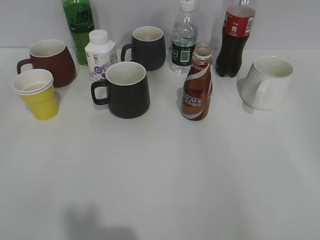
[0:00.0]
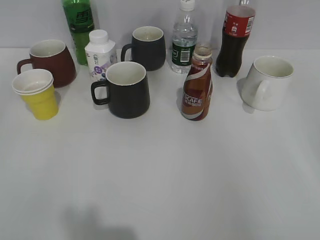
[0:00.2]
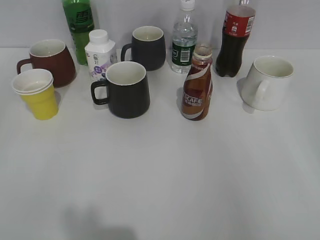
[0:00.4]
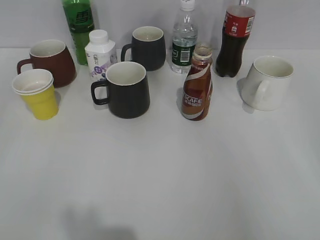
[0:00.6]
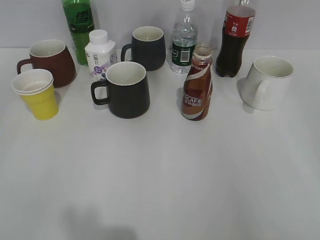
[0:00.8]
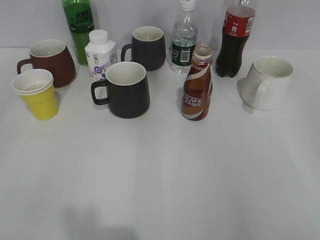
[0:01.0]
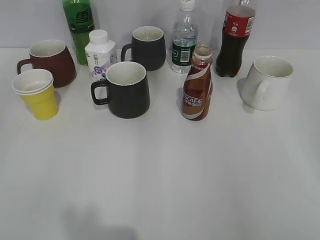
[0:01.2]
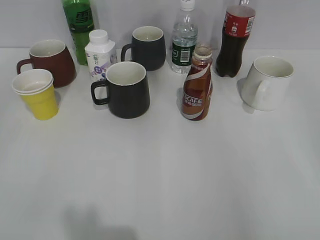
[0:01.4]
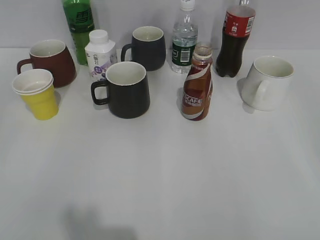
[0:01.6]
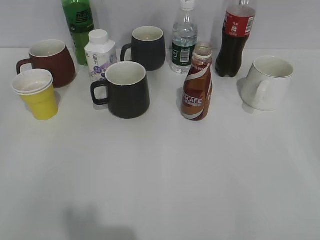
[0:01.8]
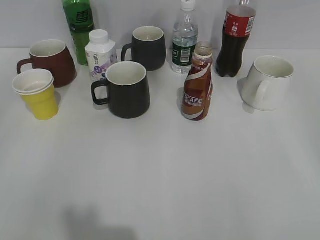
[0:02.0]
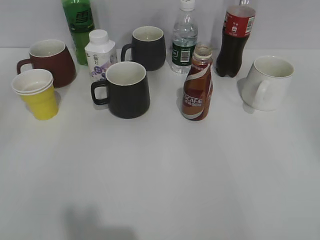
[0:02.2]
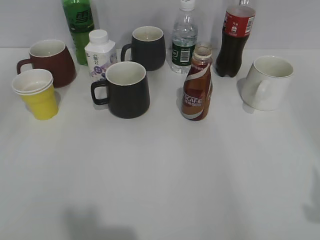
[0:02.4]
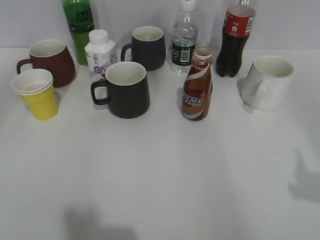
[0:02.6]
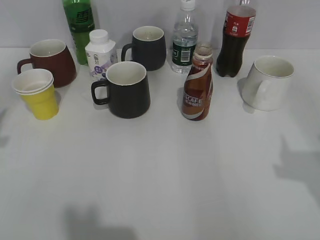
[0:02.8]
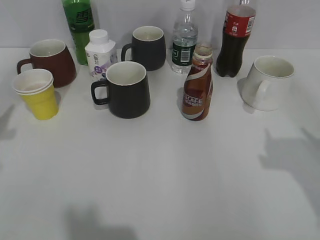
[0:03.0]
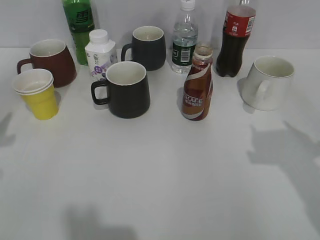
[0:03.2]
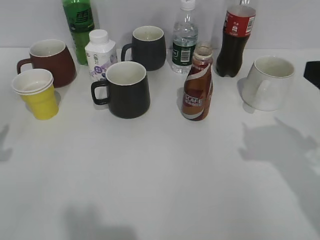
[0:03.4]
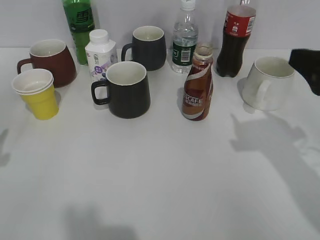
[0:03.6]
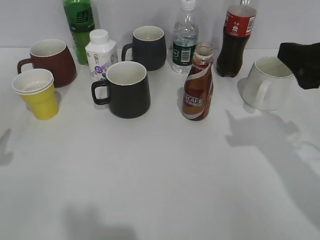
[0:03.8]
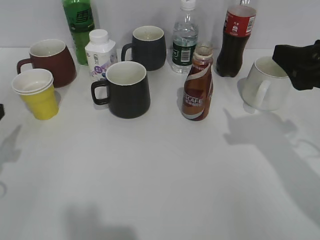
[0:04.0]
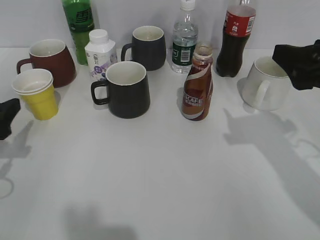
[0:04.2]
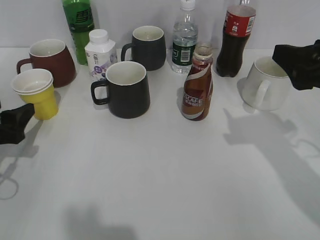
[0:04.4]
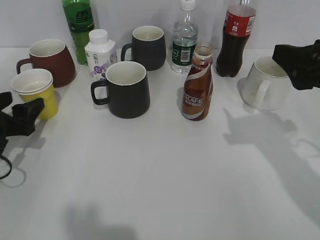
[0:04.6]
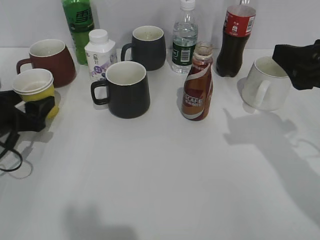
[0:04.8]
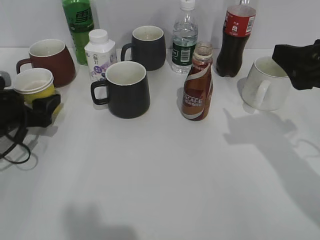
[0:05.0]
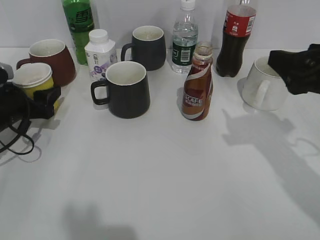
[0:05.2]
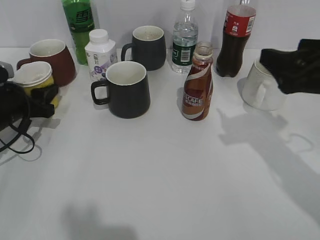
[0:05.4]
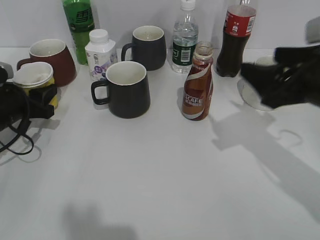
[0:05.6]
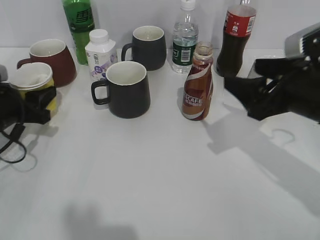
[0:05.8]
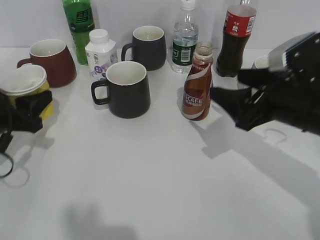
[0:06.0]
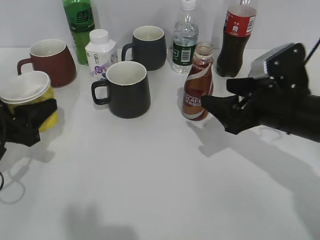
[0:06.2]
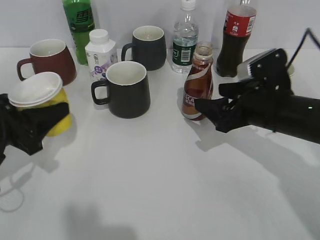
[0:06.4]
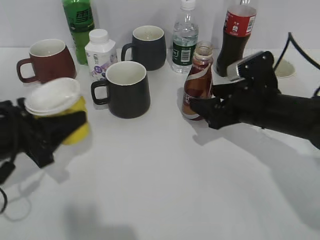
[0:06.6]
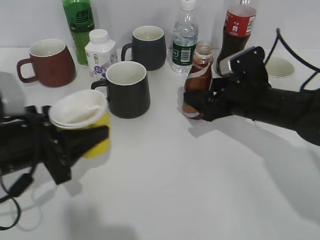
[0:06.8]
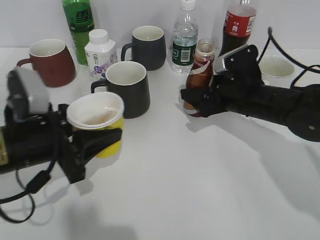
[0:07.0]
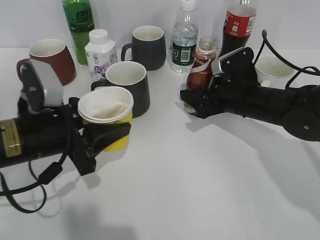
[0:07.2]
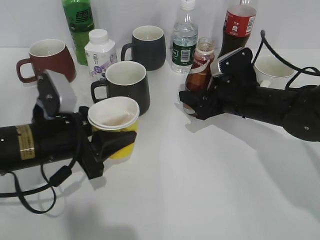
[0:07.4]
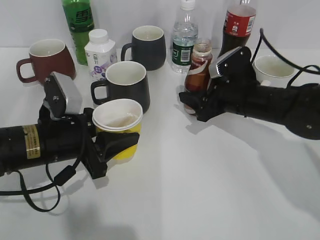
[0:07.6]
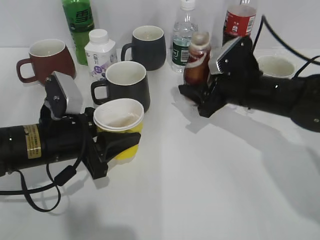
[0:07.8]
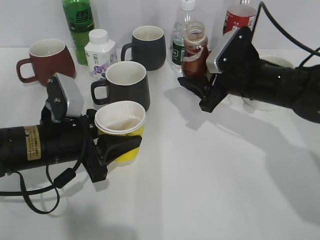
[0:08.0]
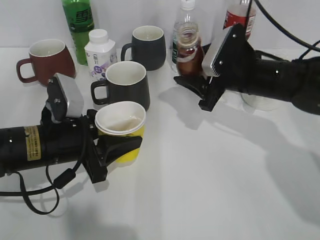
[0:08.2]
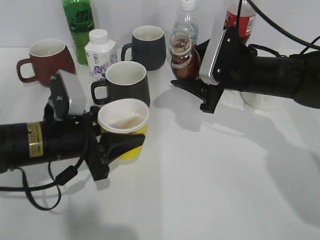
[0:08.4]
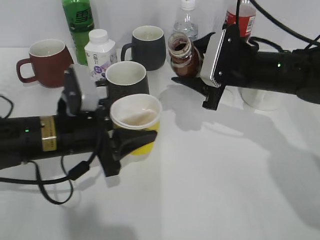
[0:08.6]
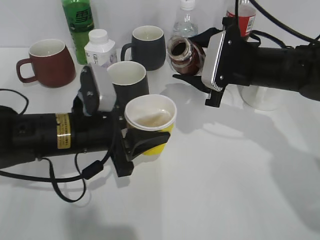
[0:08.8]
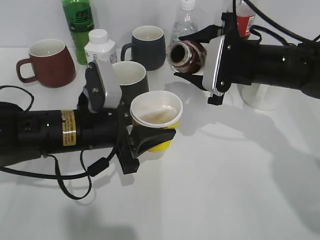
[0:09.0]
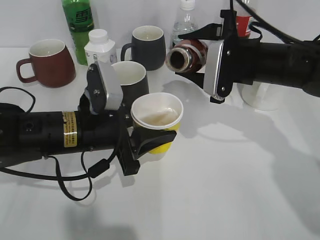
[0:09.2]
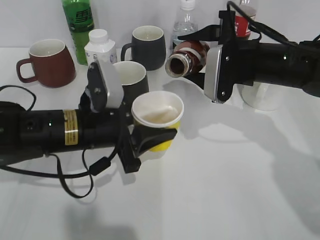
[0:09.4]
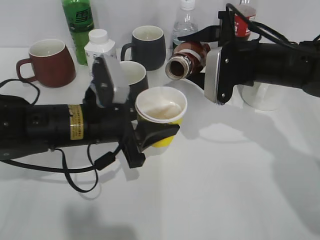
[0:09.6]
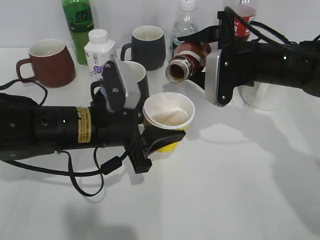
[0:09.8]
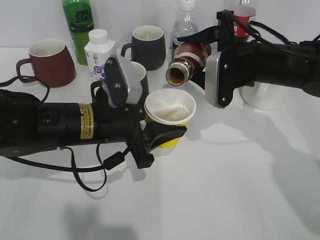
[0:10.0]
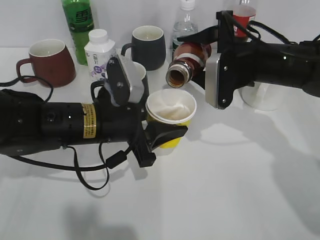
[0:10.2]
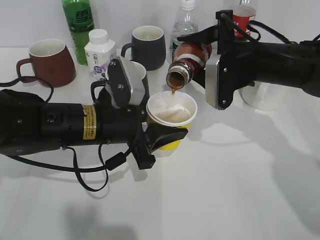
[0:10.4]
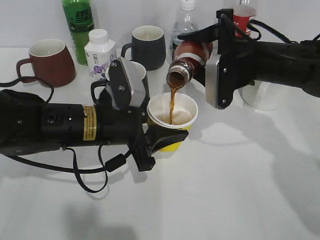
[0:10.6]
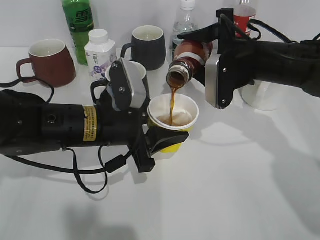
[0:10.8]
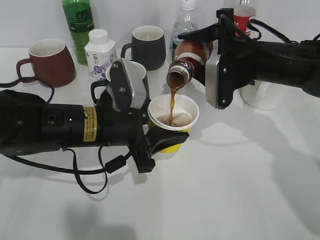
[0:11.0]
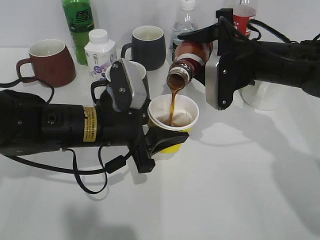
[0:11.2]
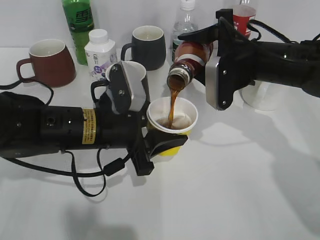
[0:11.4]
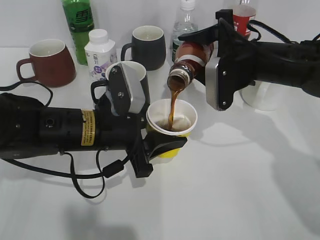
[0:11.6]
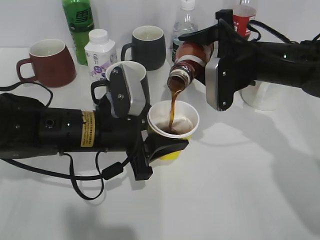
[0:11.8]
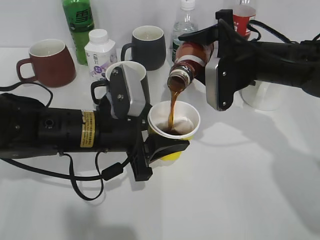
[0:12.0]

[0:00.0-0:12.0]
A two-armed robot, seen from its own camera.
Step, 0:01.8 to 0:05.2: Grasp the yellow paper cup with left gripper.
Step, 0:05.4 to 0:07.4: Grasp the bottle with coffee with right gripper.
0:01.6 to 0:03.0: The right gripper heads forward, covering about 15 cm.
0:03.0 to 0:04.4: The left gripper heads downward, covering some 15 cm. Meanwhile the right gripper is displaced forward and to the left by some 10 cm.
0:04.4 to 0:06.0: The right gripper is displaced downward by about 5 cm, while the left gripper closes up.
0:06.0 to 0:07.6: The right gripper shifts roughly 15 cm forward and downward, and closes up. Meanwhile the left gripper is displaced to the right by about 10 cm.
0:07.6 to 0:09.0: The left gripper moves to the right, approximately 5 cm; the right gripper heads upward, covering approximately 10 cm.
0:10.4 to 0:12.0: The grippers make only small movements.

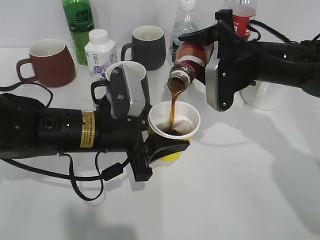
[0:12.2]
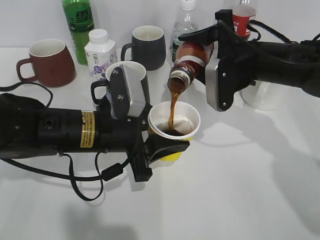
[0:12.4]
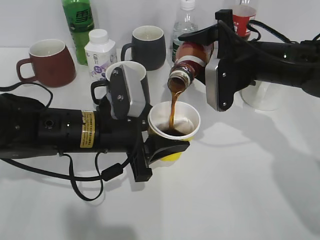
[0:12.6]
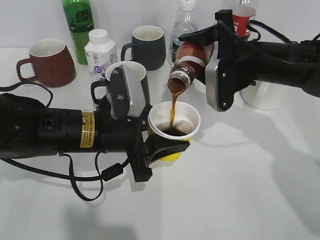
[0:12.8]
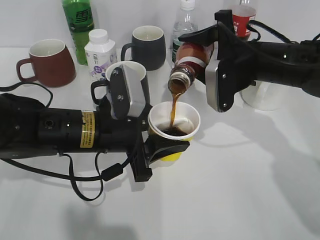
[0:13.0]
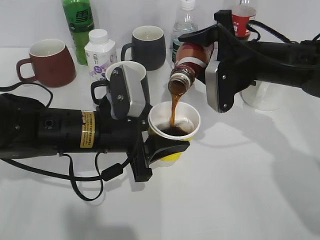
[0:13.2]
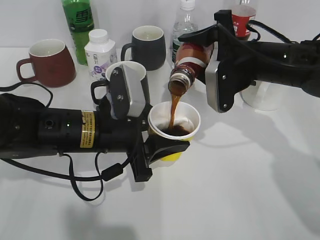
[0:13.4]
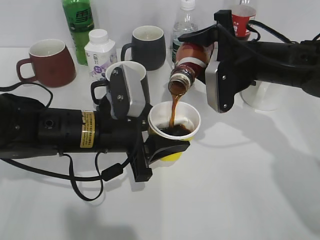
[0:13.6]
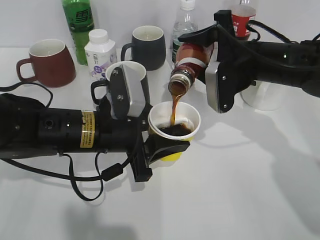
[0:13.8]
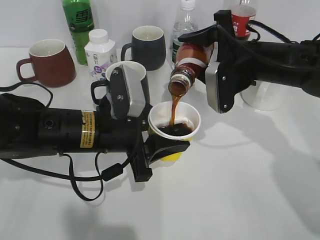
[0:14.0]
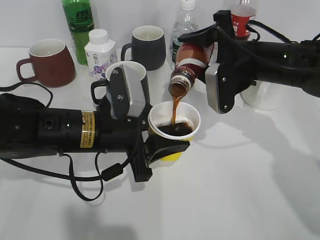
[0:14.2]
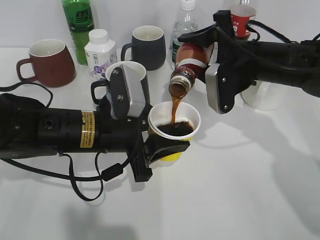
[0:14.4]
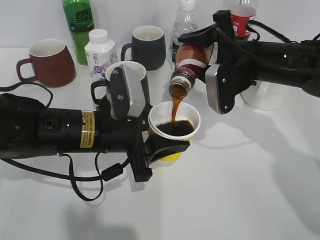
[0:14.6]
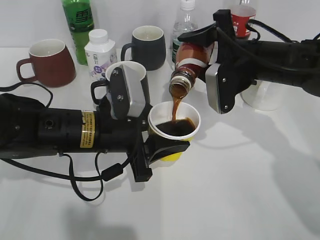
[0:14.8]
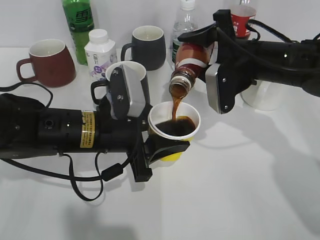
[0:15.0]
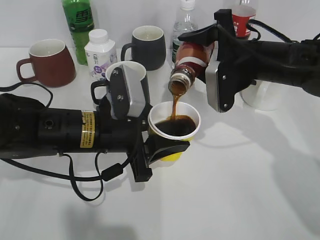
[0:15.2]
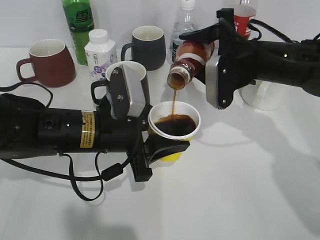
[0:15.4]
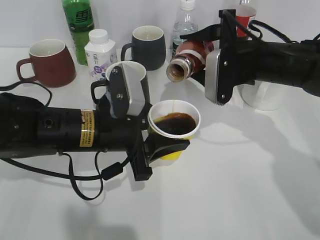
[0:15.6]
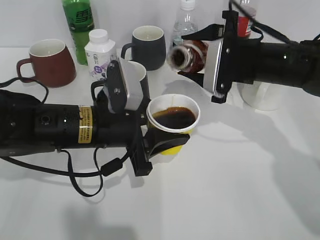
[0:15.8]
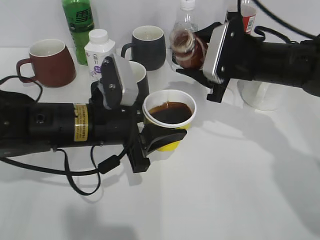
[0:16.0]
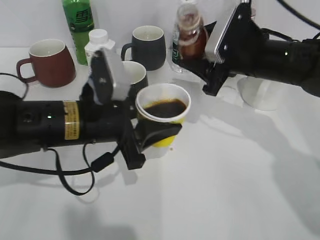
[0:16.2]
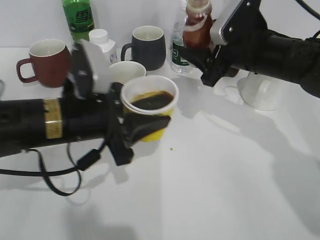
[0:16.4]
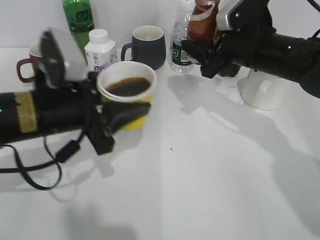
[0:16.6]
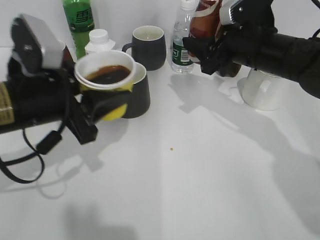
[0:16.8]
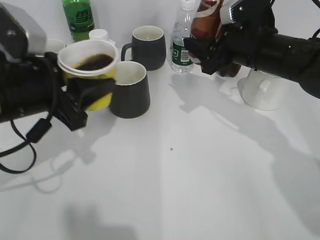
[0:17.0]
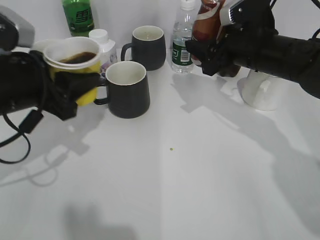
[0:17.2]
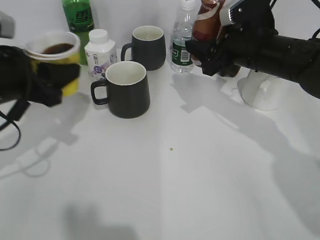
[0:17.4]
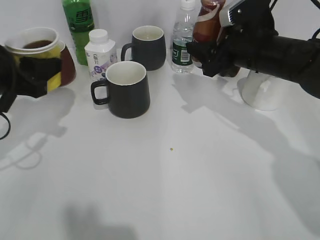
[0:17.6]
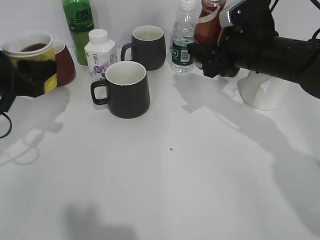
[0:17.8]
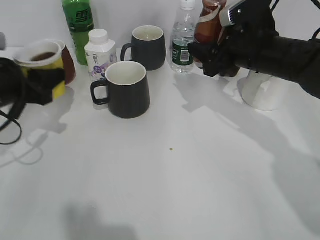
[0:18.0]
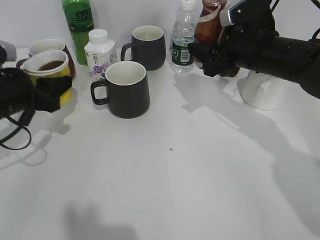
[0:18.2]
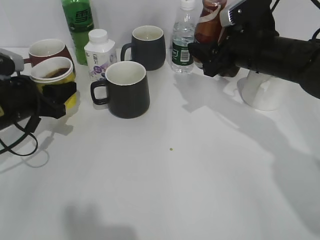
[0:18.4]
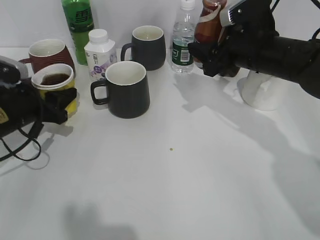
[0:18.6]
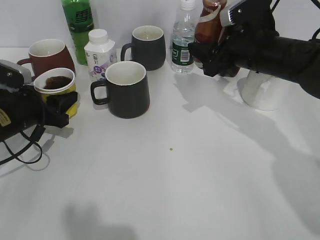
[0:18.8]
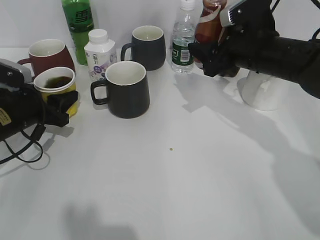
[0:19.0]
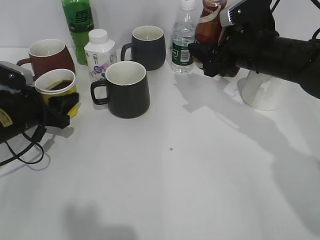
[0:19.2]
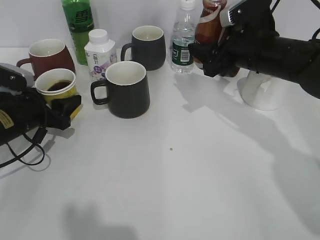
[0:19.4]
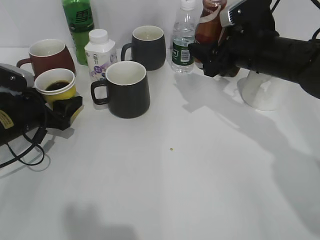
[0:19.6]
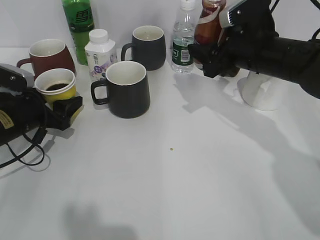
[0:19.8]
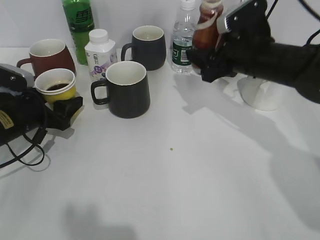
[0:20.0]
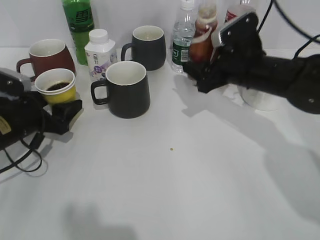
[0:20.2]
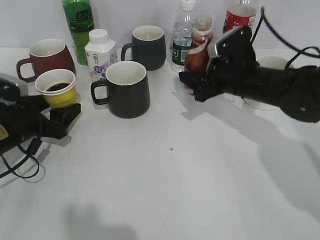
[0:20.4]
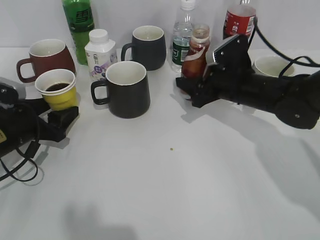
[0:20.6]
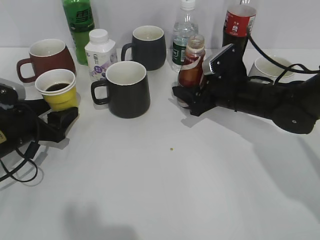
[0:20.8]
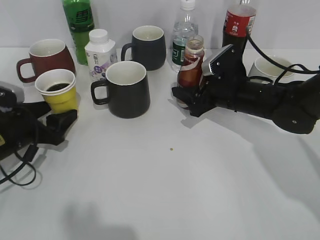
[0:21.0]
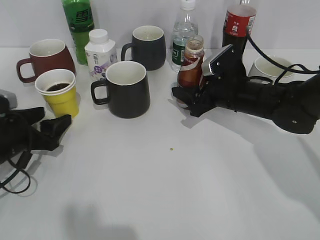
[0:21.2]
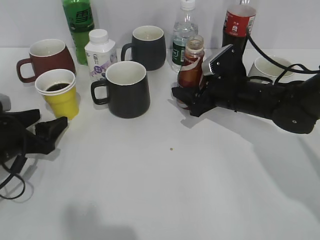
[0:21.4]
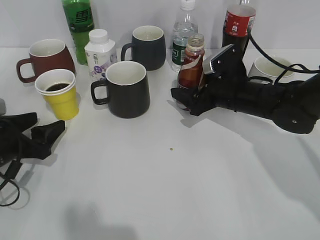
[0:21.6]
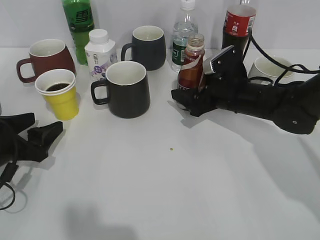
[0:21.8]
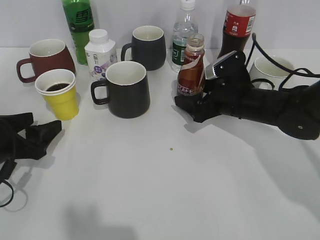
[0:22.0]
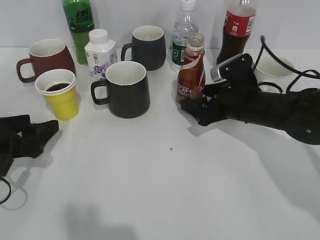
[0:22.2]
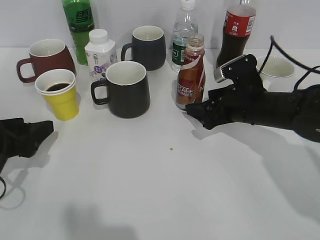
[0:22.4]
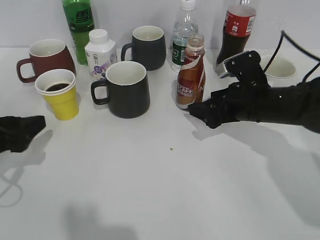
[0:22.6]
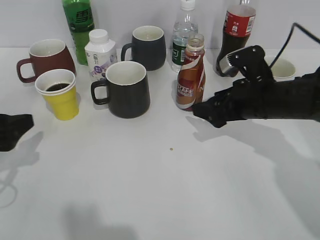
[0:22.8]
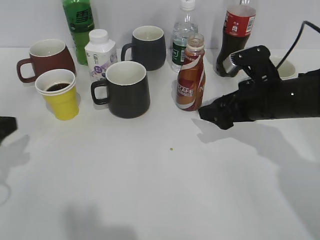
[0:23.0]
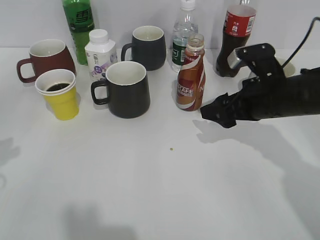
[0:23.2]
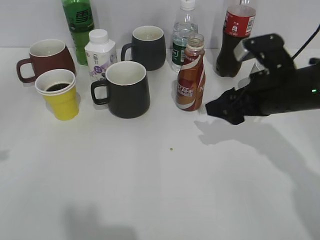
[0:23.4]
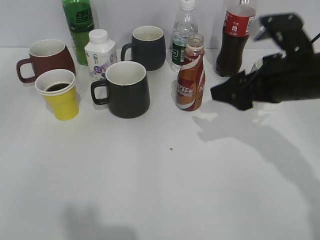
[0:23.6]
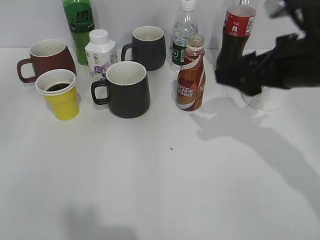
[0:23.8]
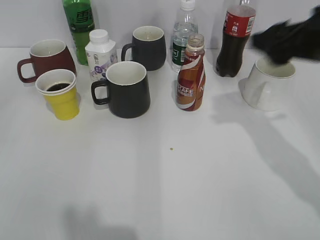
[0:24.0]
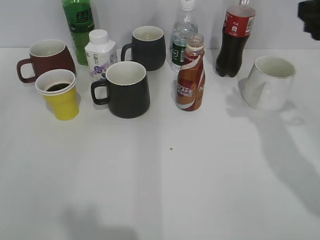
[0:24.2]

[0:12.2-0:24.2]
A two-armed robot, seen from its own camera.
Step, 0:12.2 to 0:15.8: Pour the coffee from bottle to cup with right gripper.
Step, 0:16.0 to 0:19.8: Place the yellow paper cup on the table with left gripper.
Step, 0:20.0 to 0:22.8: Place the coffee bottle on the table with right gripper.
0:12.2 to 0:13.8: Both grippers stay about where they are.
0:13.8 to 0:15.2: Neither gripper changes place.
0:15.2 to 0:16.6: The left gripper ends up about 5 cm from where it was.
0:16.6 to 0:18.2: The left gripper moves to the left and forward, some 15 cm.
0:18.2 to 0:19.8: The left gripper travels downward by about 5 cm, and opens up.
0:19.8 to 0:21.2: The right gripper shifts about 10 cm downward.
0:21.2 to 0:22.6: The left gripper shifts some 5 cm backward and upward, while the right gripper opens.
0:22.6 to 0:24.2: The right gripper is displaced upward and to the right by some 20 cm; the left gripper heads backward and upward, covering approximately 20 cm.
